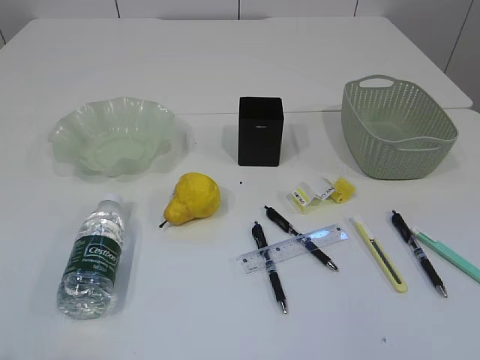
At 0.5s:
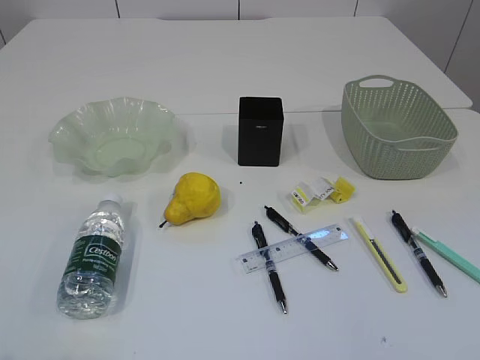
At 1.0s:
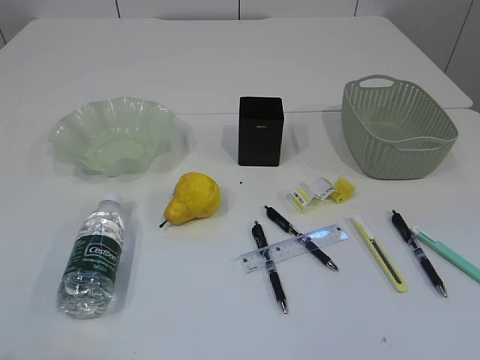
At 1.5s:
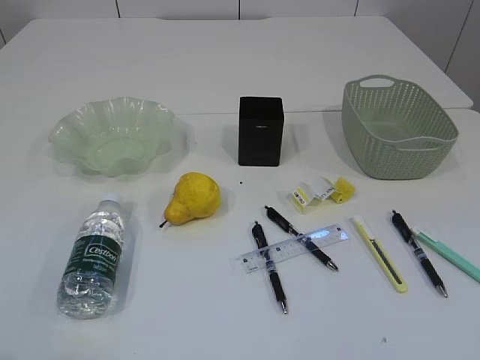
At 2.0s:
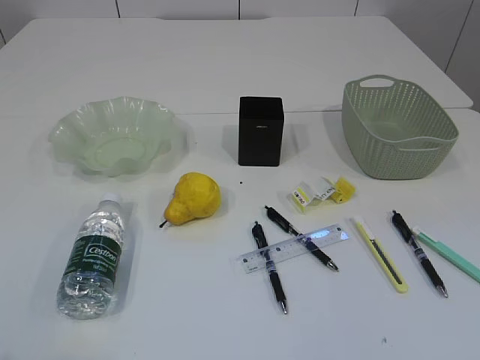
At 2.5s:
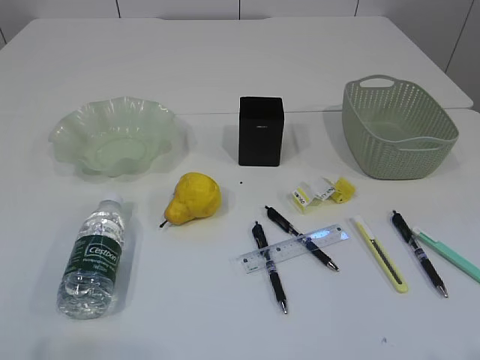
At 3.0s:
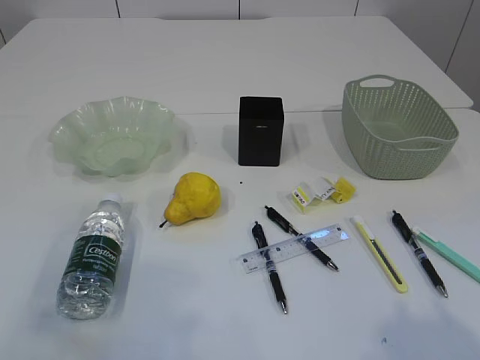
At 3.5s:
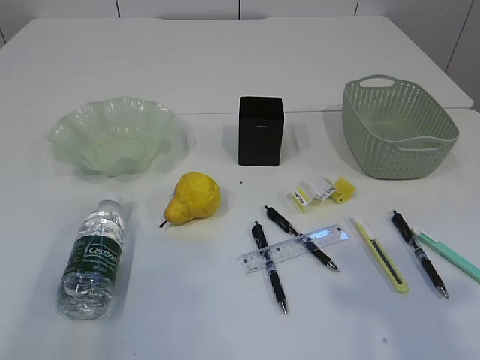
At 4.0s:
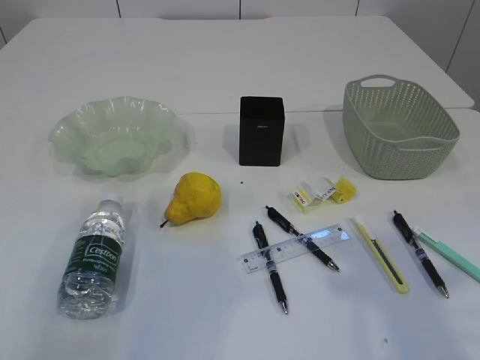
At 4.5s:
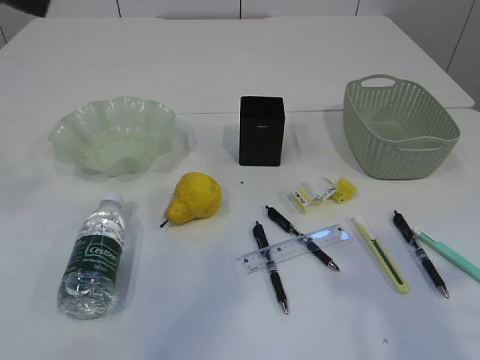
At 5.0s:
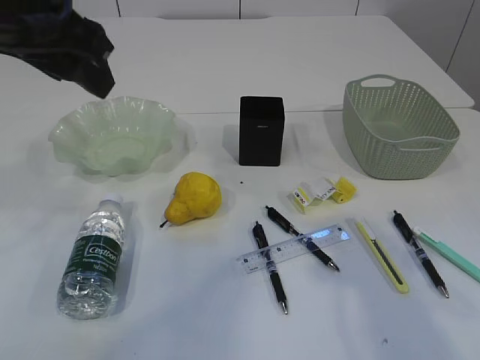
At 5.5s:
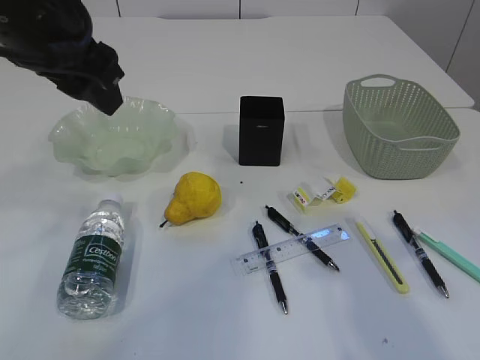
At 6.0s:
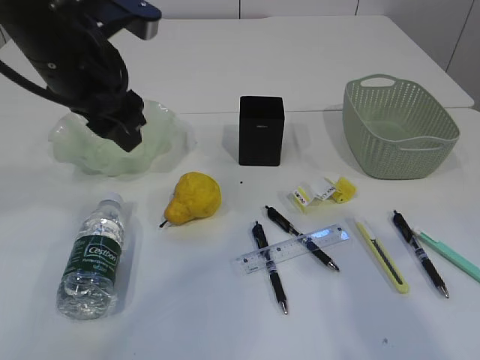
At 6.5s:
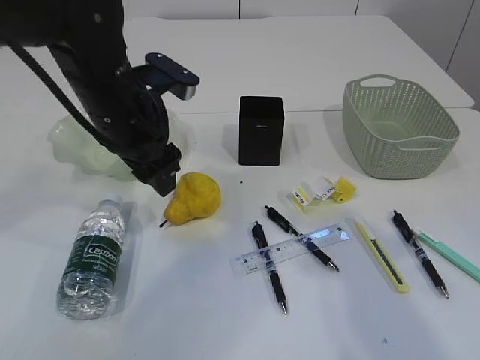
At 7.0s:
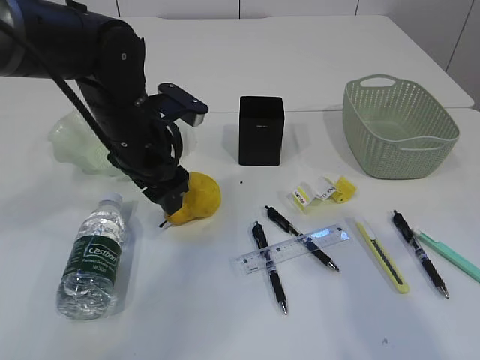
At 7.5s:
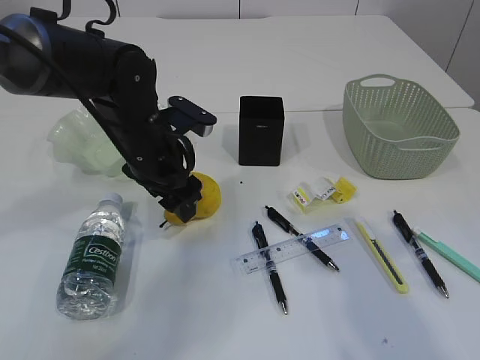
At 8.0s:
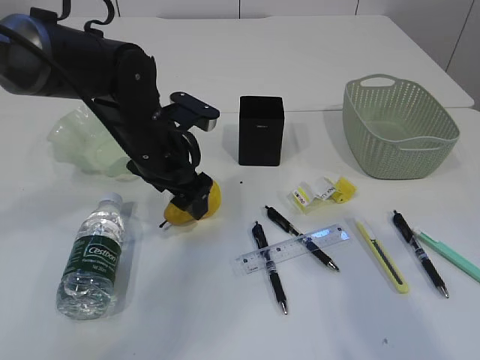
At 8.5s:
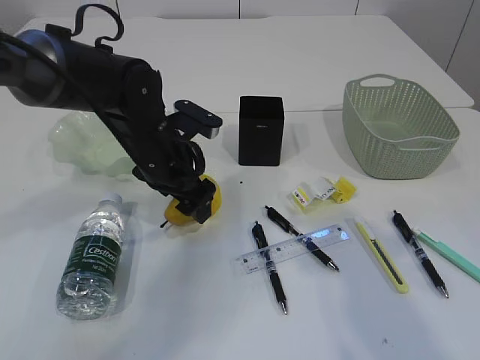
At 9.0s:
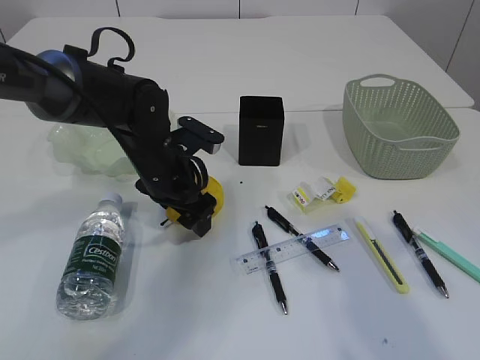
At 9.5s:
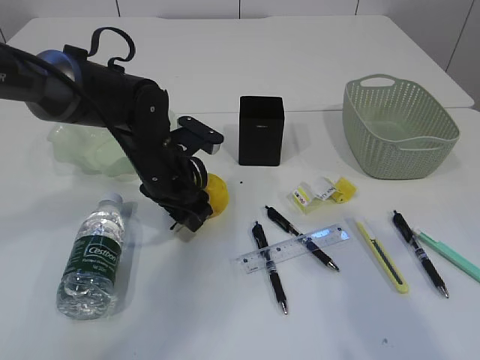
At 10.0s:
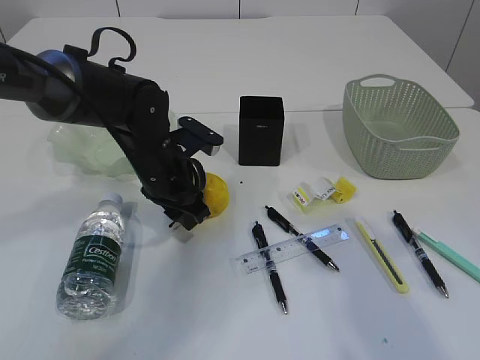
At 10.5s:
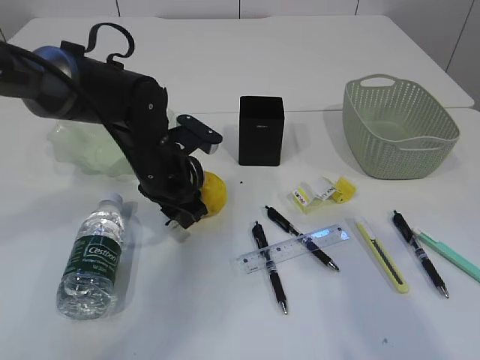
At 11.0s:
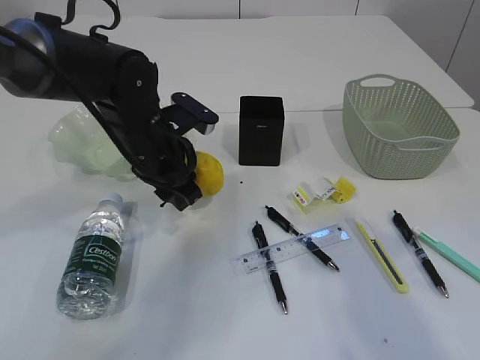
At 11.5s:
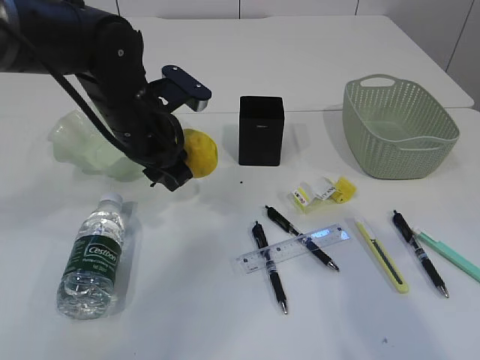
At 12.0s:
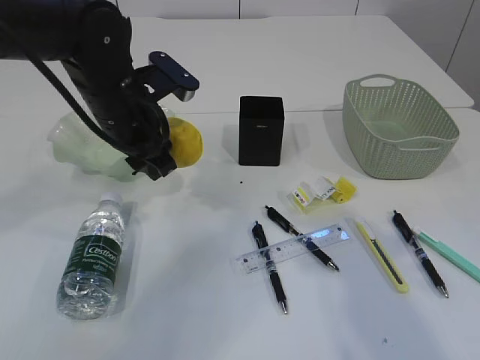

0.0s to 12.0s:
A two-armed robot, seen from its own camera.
2.0s to 4.0s: The grippers both shift forward and upward by some 20 cm.
4.0s to 6.0s: The left gripper heads forward, to the right and downward, covering approximately 25 cm.
6.0s to 8.0s: The left gripper shifts some 15 cm downward, and opens up.
8.0s to 10.0s: The left gripper closes.
10.0s to 12.0s: The left gripper shifts some 10 cm upward.

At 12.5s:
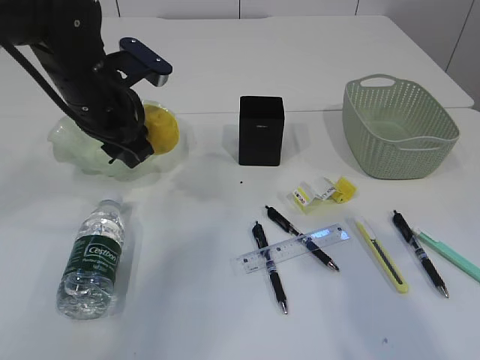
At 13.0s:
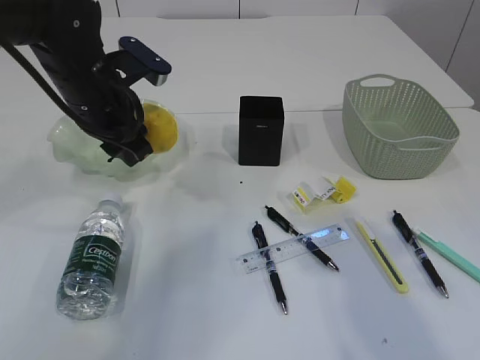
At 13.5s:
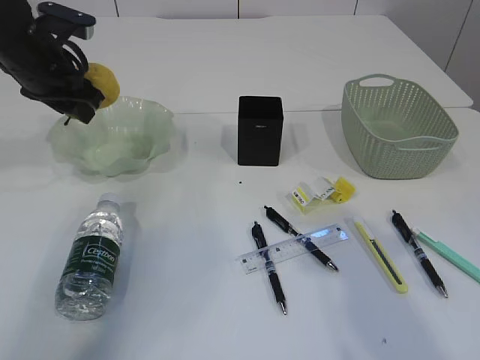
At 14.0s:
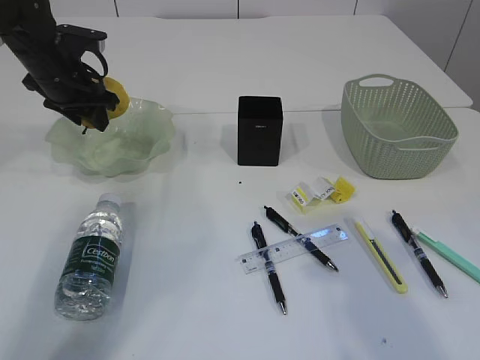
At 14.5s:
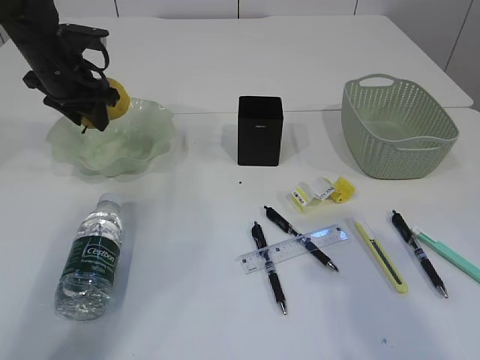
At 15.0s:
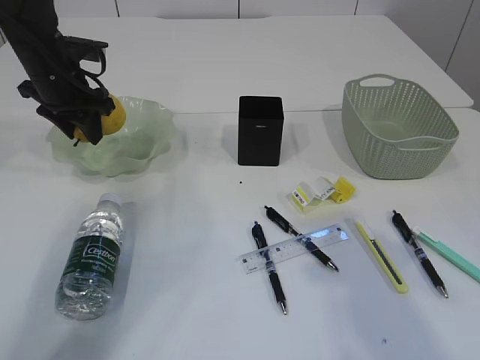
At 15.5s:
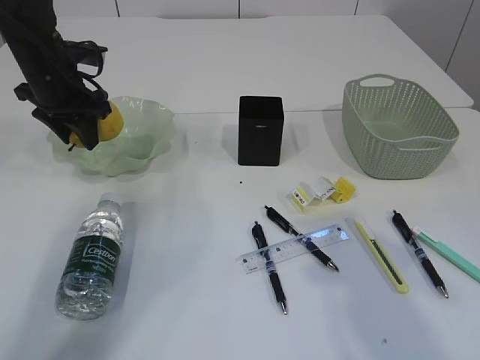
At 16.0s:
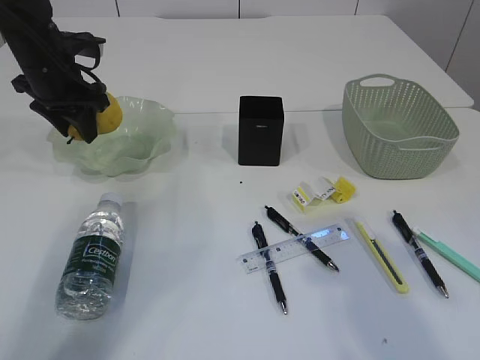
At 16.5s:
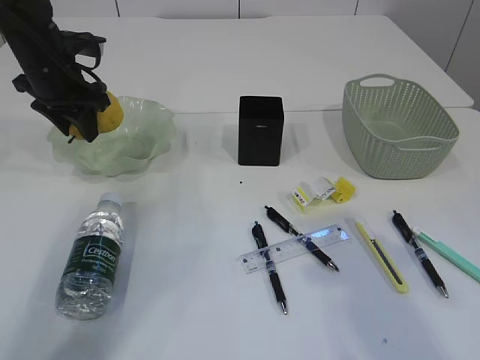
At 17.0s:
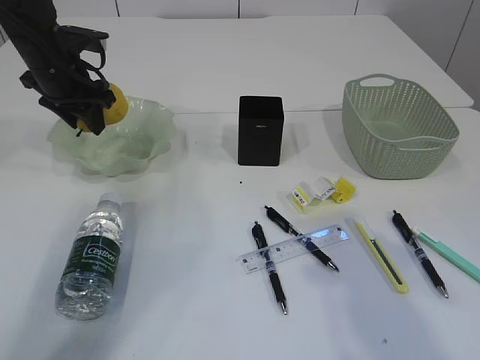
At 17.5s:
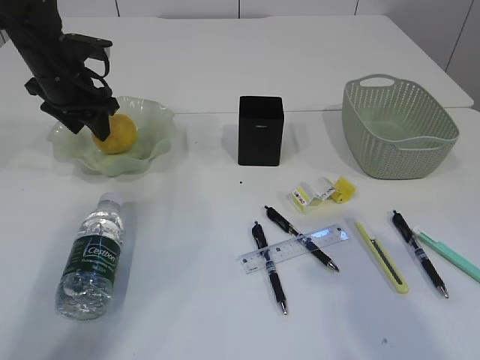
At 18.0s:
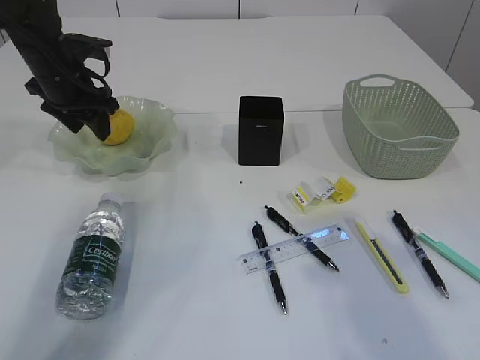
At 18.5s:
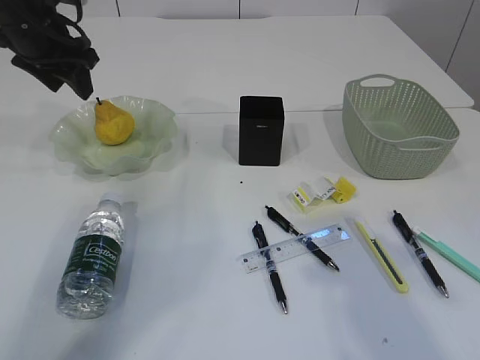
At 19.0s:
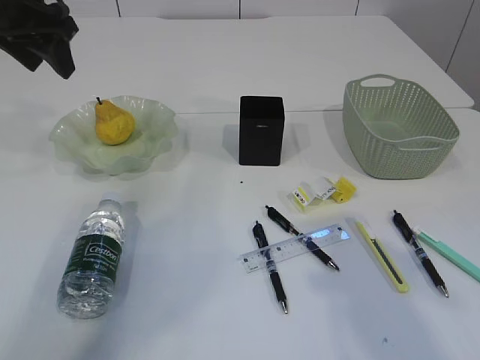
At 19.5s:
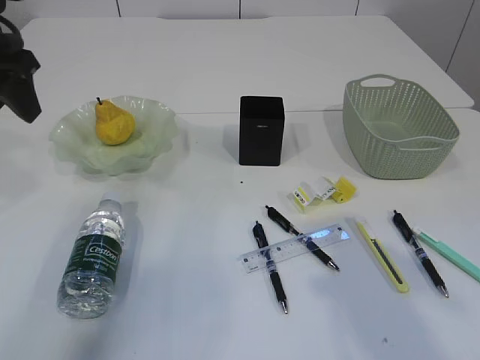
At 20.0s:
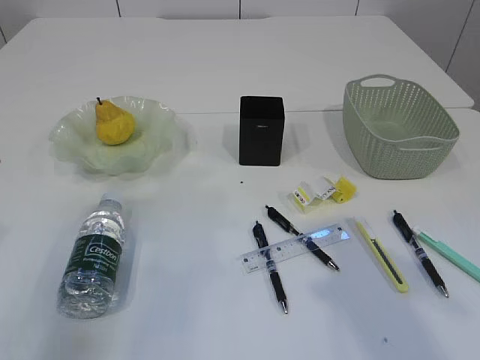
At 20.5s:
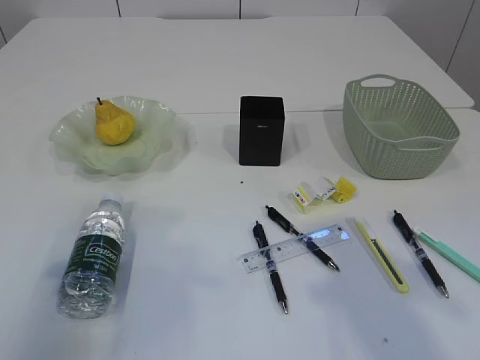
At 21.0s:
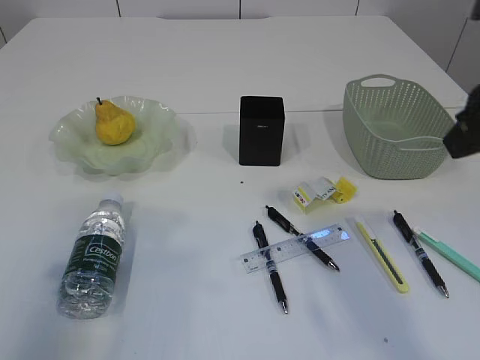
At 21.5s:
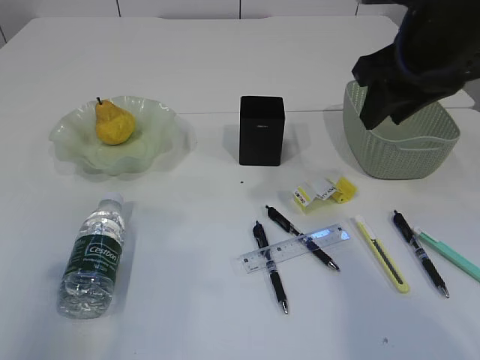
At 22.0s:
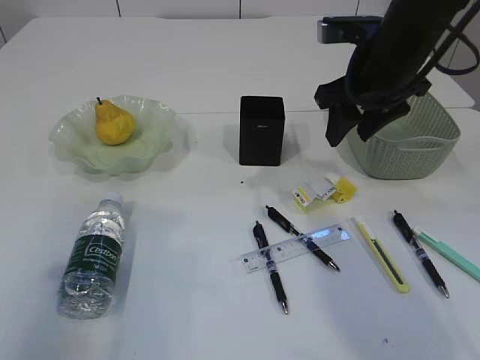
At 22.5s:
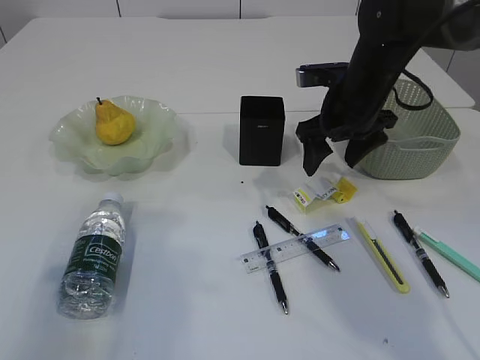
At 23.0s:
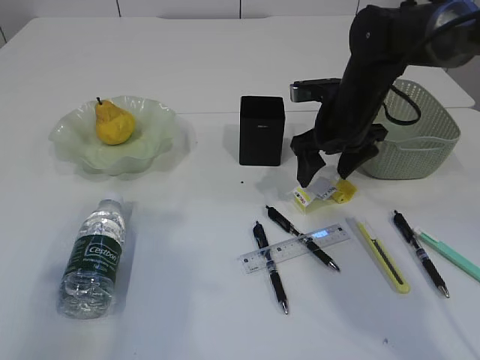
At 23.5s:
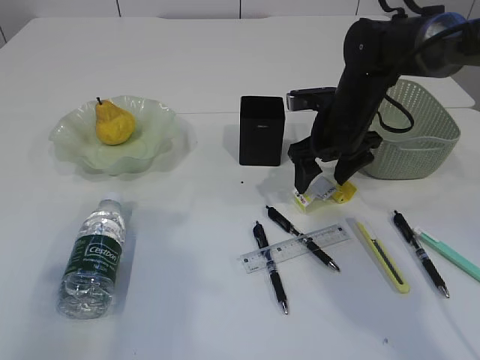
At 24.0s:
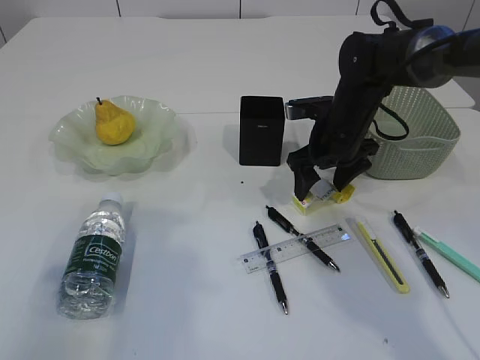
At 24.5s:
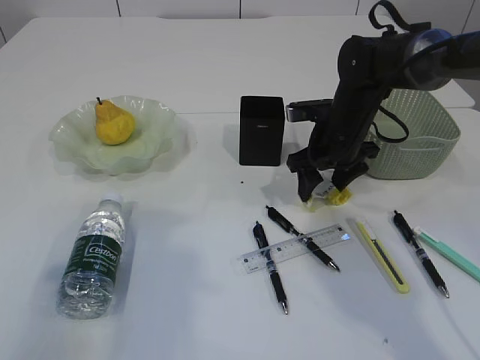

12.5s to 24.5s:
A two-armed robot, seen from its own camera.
Step, 12.5s to 18.0s: Place the pear in the plate.
12.5s to 14.5s: The left gripper goes roughly 15 cm forward and to the left.
14.5s to 16.5s: The grippers move only a little.
16.5s to 18.5s: The left gripper shifts roughly 5 cm upward, and opens up.
18.5s to 20.5s: The left gripper travels backward by about 25 cm.
20.5s to 22.5s: The right gripper travels forward and downward by some 30 cm, and opens up.
22.5s to 24.5s: The right gripper goes some 5 cm downward.

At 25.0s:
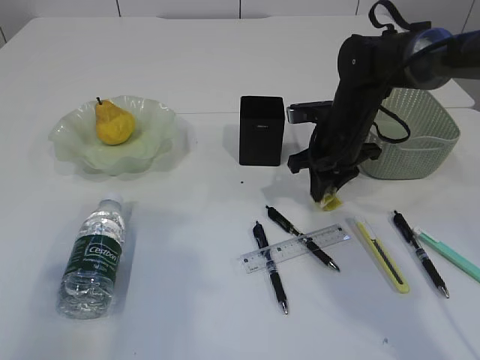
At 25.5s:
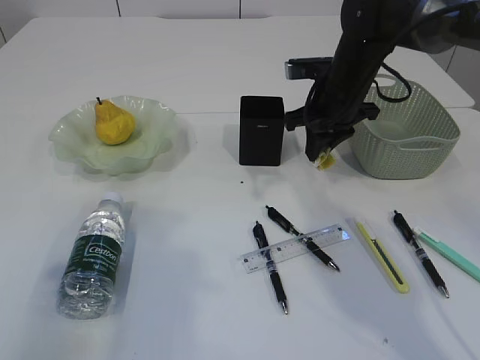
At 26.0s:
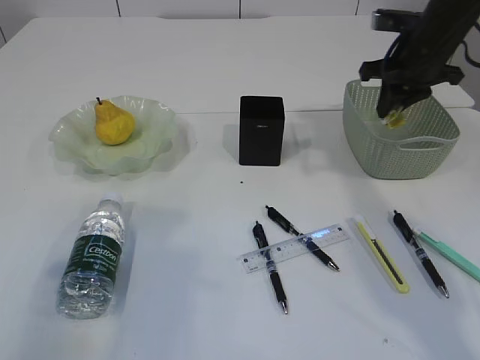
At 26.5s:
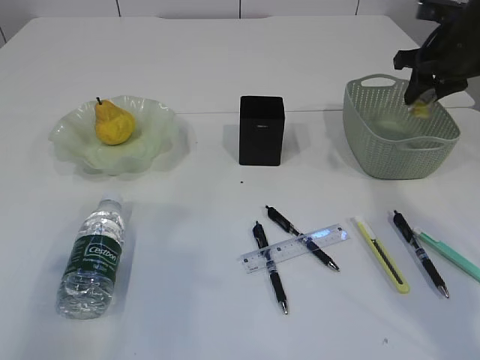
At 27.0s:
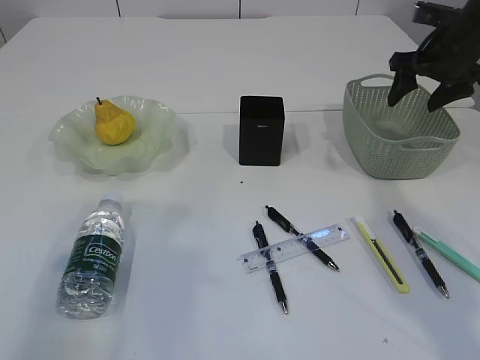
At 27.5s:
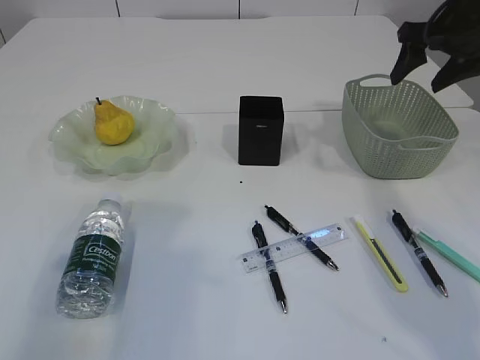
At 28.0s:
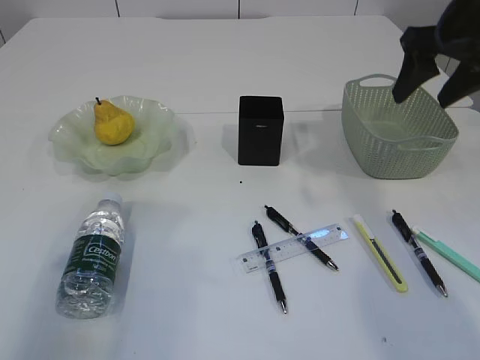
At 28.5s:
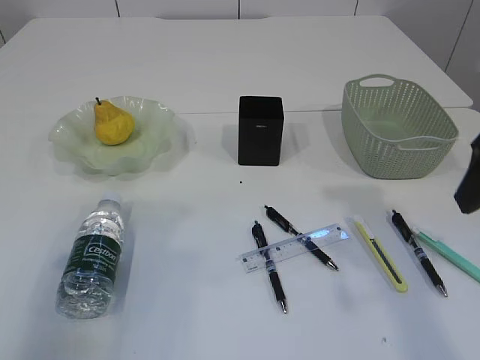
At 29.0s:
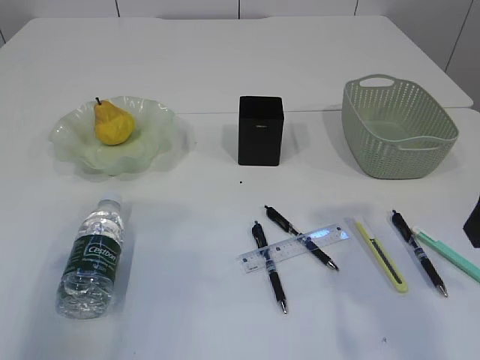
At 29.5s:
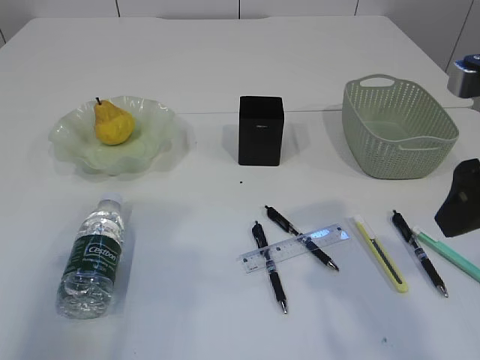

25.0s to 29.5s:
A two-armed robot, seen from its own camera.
Step, 25.5s to 27.0s: Place the waste paper in the basket.
25.0s to 27.0s: The right gripper is displaced to the right and upward by roughly 20 cm, and opens its fingers.
27.0s to 29.5s: The right gripper travels backward by some 25 cm.
